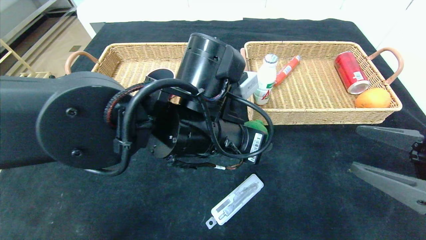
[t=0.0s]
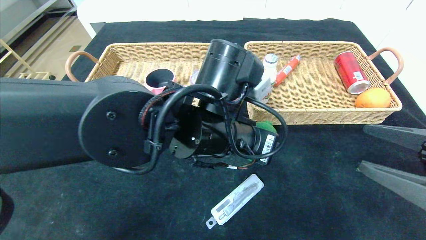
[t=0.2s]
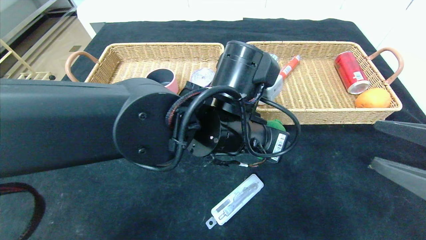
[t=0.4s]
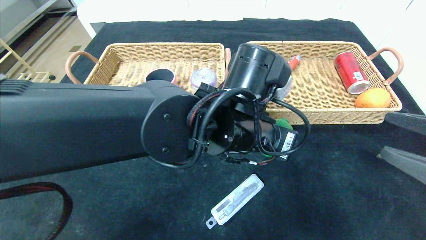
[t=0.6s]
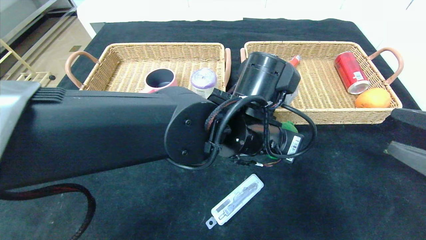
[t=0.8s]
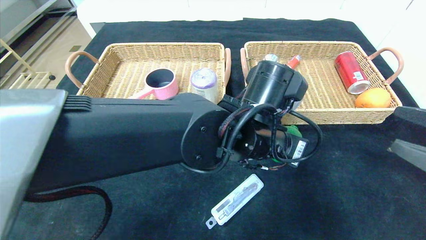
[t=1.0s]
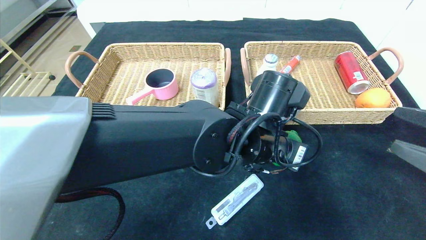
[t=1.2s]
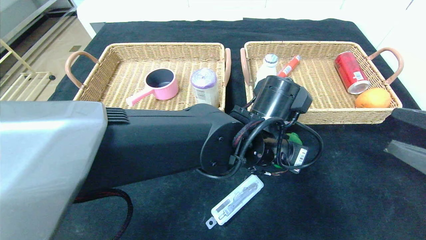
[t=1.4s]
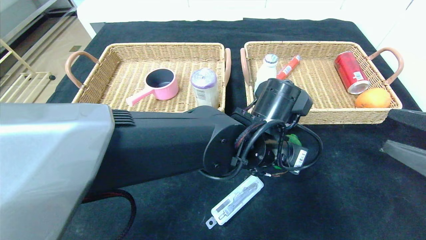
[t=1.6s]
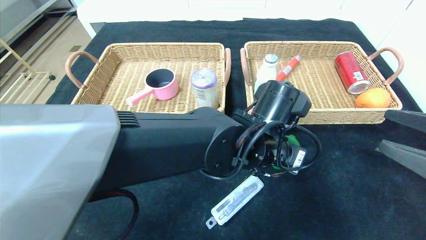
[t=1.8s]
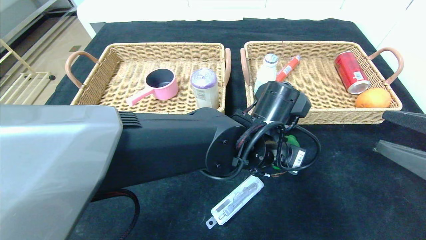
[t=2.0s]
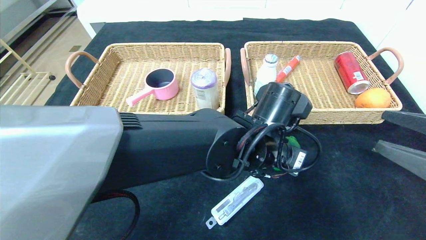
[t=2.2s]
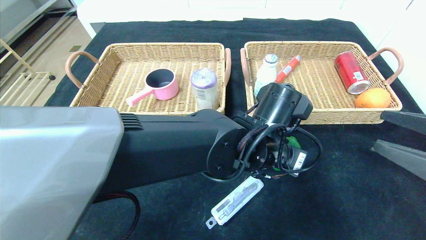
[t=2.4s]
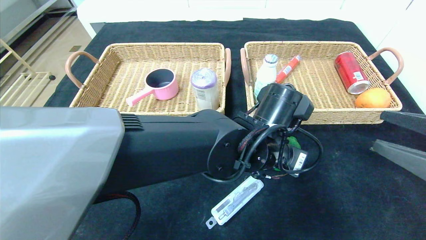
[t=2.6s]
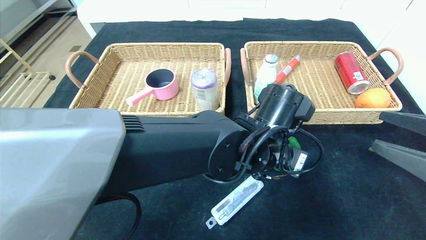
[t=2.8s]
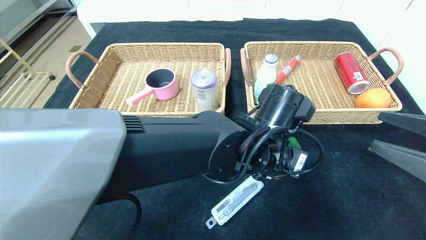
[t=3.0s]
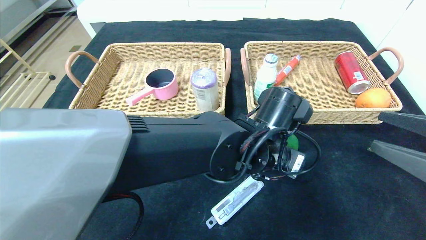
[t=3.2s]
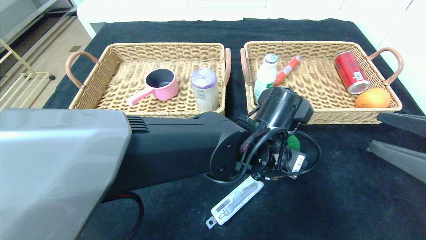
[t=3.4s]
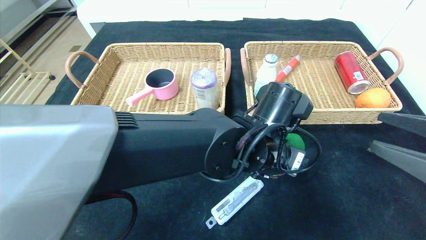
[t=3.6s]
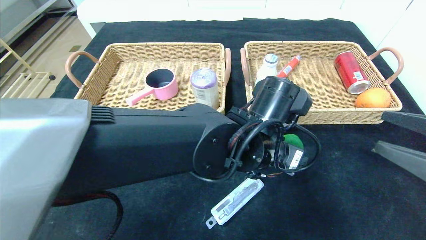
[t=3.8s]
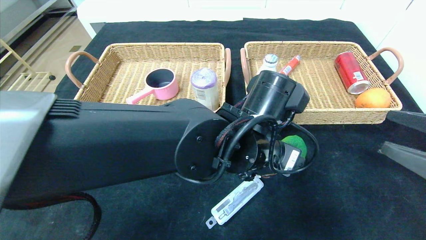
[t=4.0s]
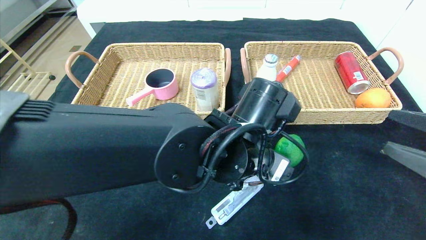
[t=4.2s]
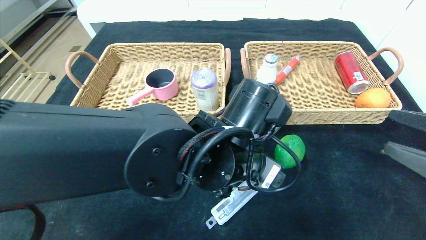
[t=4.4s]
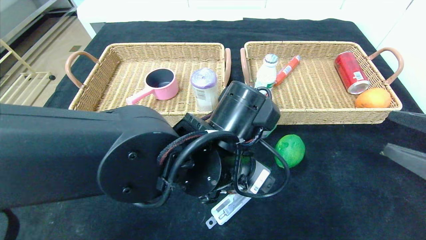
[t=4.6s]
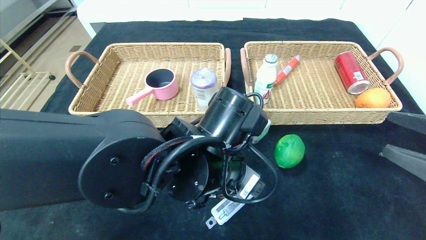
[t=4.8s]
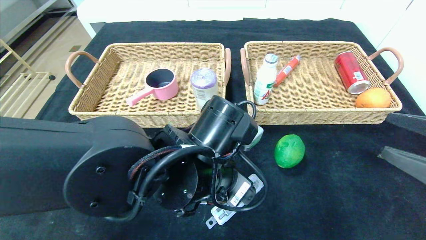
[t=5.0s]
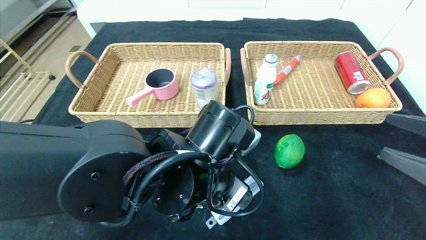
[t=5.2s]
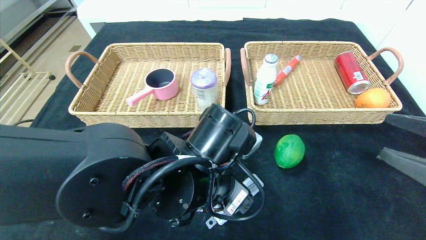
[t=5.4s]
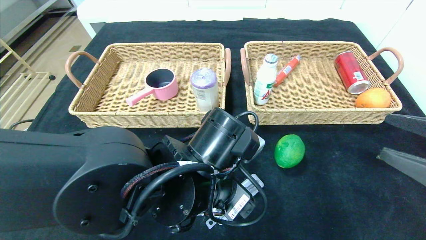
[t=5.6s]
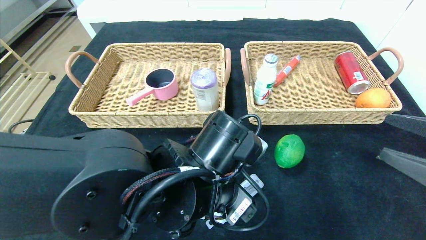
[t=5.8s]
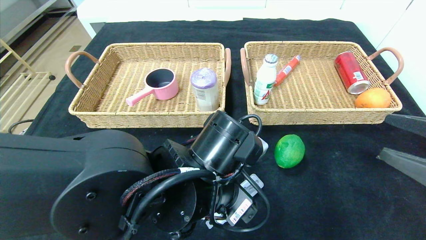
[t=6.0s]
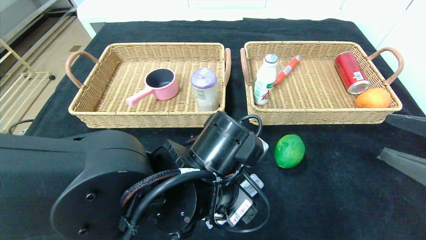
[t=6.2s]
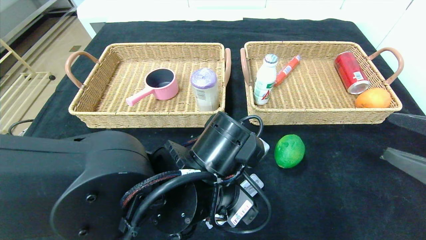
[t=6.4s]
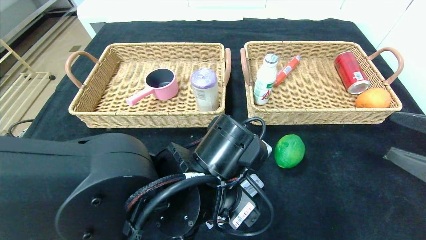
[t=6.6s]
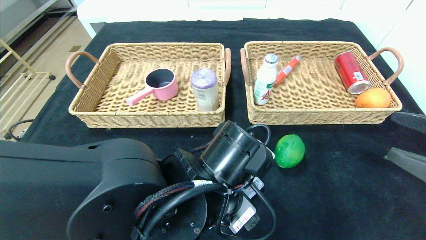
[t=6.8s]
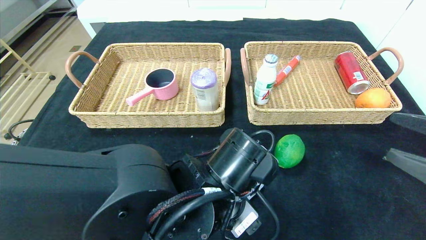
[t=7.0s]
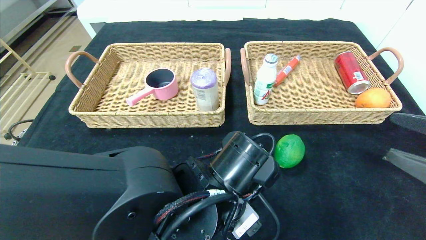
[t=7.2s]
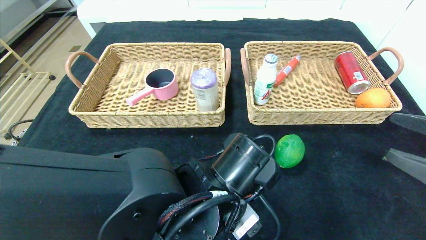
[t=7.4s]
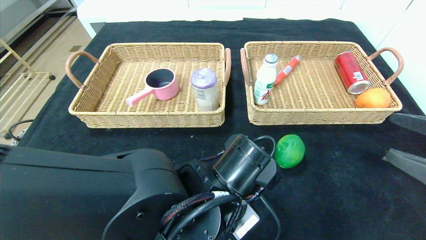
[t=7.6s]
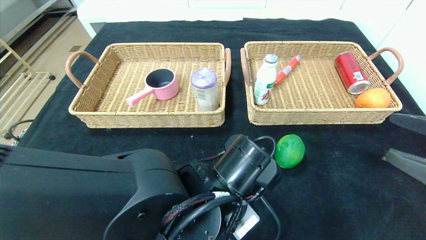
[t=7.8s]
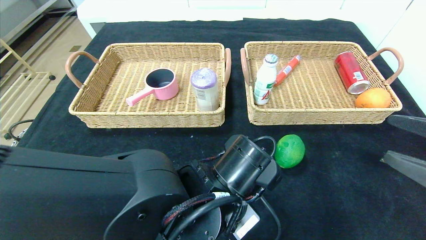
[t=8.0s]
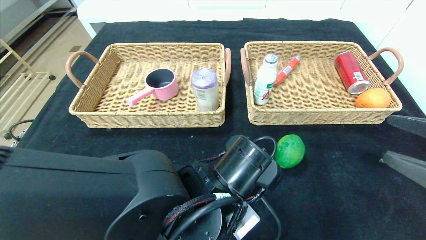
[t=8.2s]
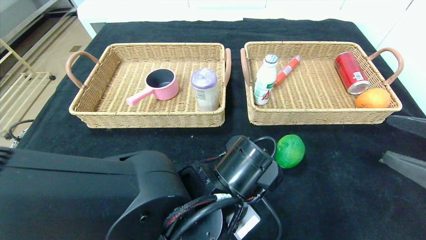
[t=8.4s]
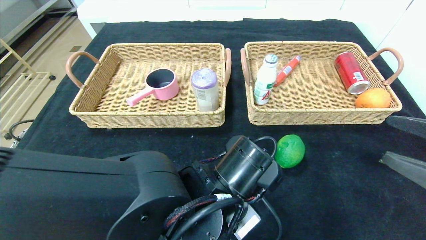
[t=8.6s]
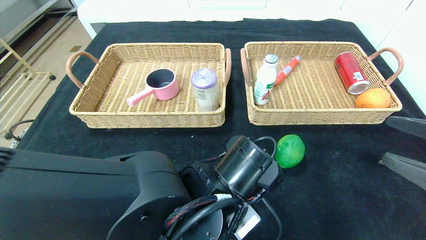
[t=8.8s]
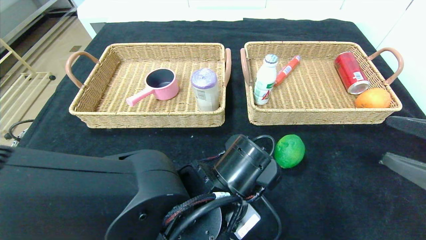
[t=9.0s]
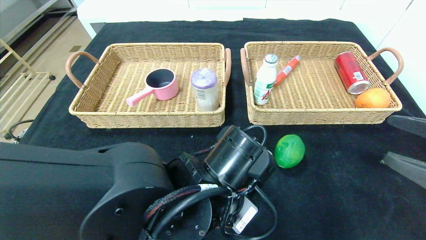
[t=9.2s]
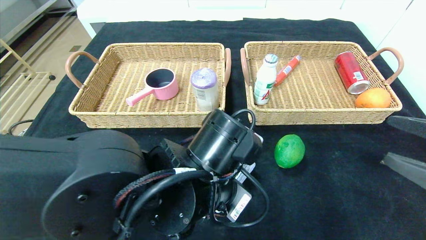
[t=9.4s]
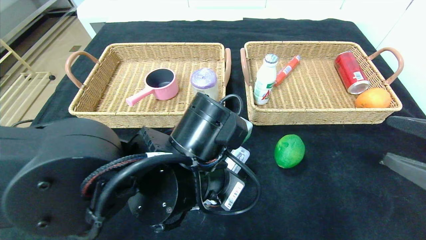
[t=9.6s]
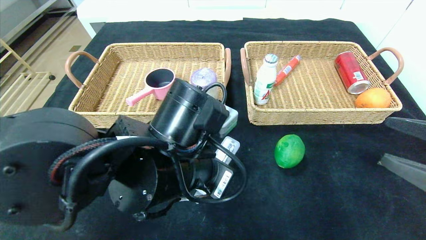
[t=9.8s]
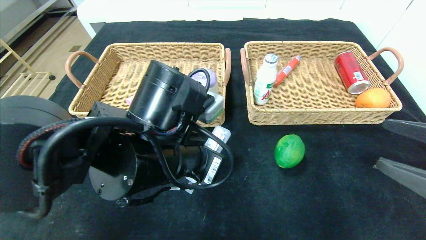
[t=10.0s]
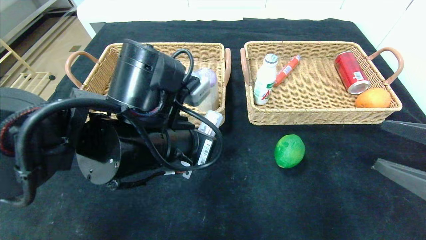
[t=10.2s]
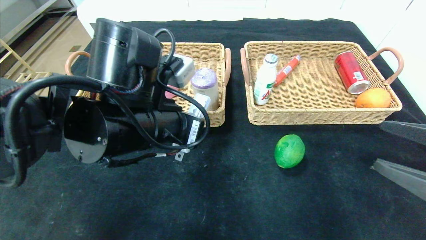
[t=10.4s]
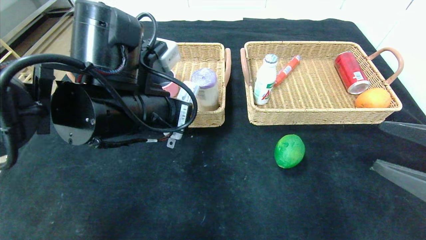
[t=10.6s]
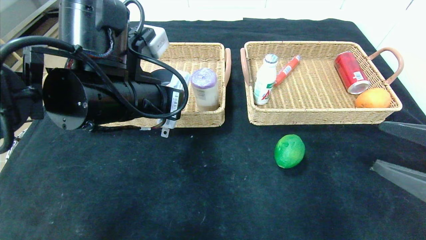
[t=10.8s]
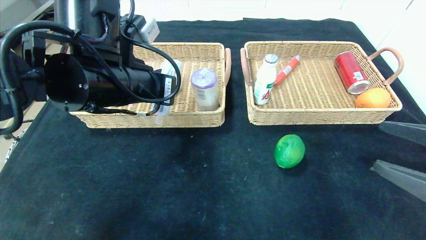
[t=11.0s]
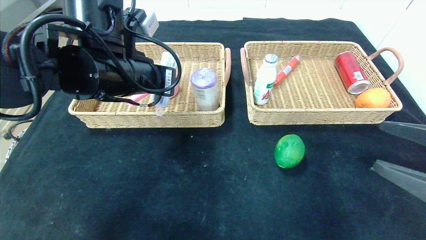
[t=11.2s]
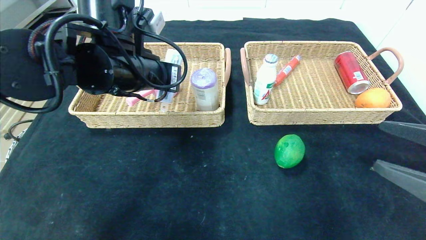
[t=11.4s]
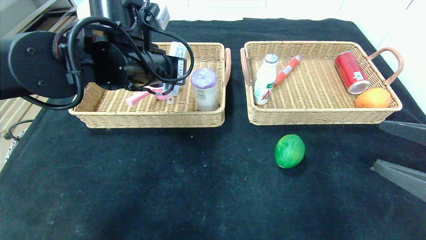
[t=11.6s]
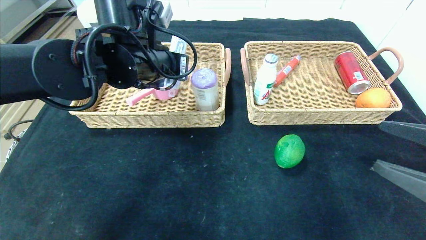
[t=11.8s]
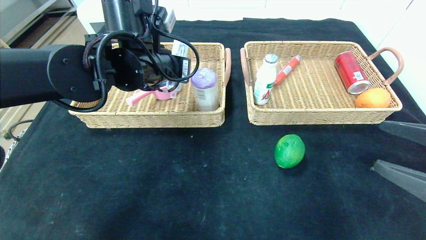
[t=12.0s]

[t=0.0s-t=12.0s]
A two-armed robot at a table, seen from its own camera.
Step, t=0.0s to t=4.6s: Place the lime in the center of the table.
t=0.0s to t=1.6s: The left gripper travels to the right by about 10 cm.
t=1.6s to t=3.0s: Both grippers stay about where they are.
t=3.0s to t=4.4s: The left gripper travels to the left by approximately 5 cm.
t=4.4s to t=6.0s: The left gripper shifts by about 5 cm.
t=6.0s to t=7.6s: The left gripper closes up.
t=7.6s to t=9.0s: Both grippers stay put.
t=9.0s to t=10.4s: The left gripper goes approximately 15 cm upward and to the left.
t=10.4s to t=12.0s: The left gripper is displaced forward by some 10 cm.

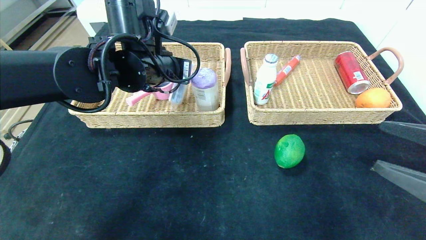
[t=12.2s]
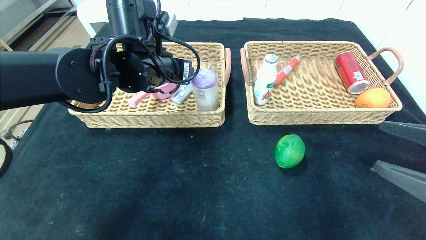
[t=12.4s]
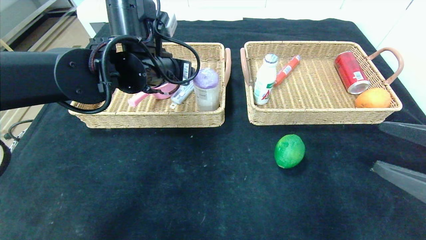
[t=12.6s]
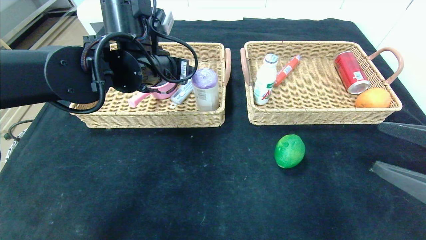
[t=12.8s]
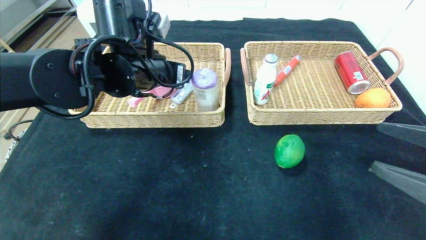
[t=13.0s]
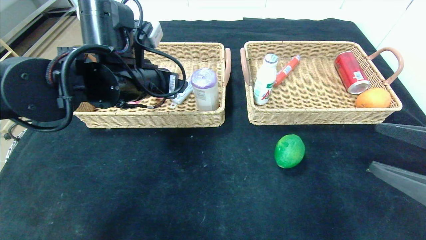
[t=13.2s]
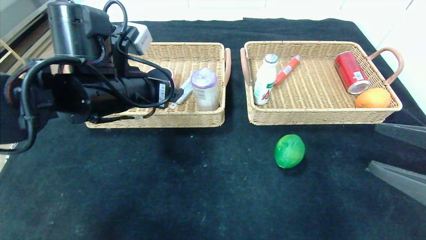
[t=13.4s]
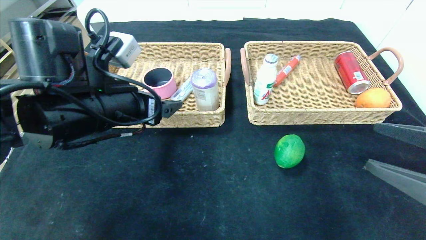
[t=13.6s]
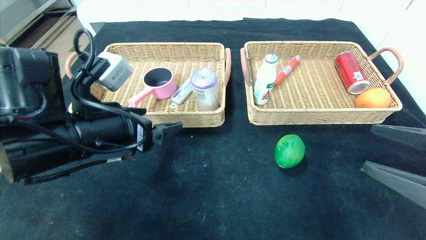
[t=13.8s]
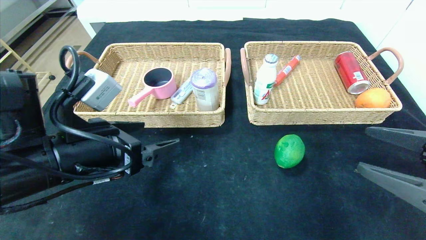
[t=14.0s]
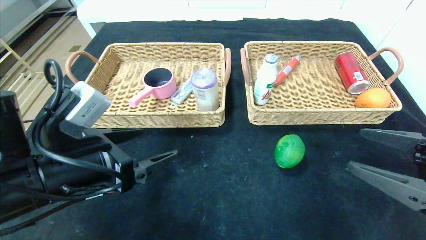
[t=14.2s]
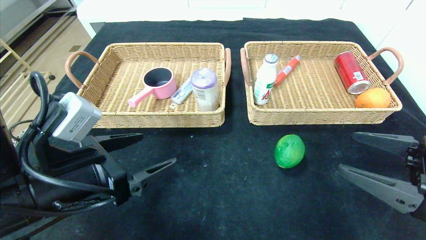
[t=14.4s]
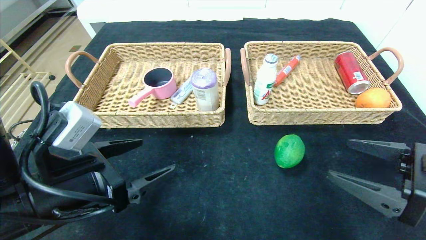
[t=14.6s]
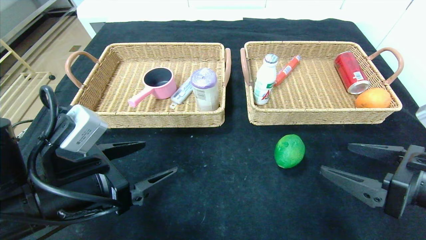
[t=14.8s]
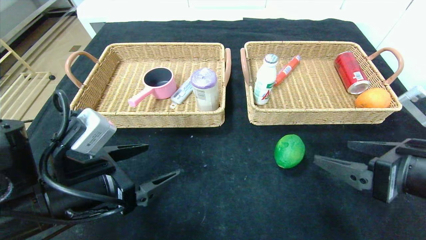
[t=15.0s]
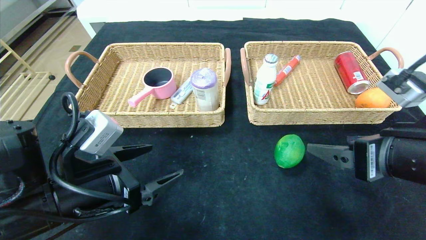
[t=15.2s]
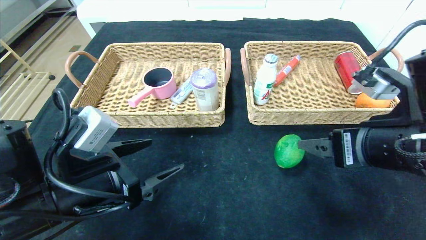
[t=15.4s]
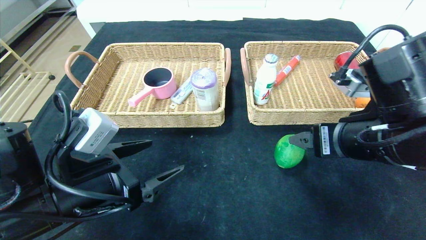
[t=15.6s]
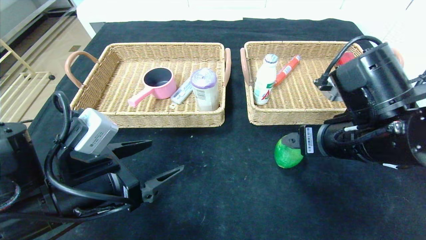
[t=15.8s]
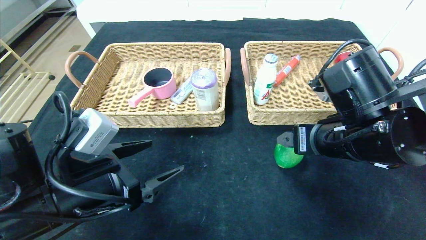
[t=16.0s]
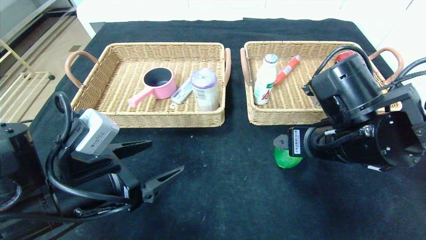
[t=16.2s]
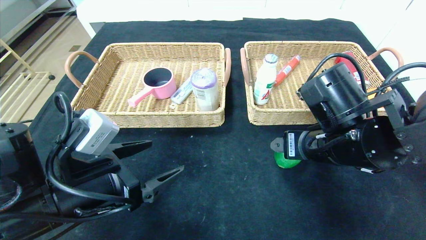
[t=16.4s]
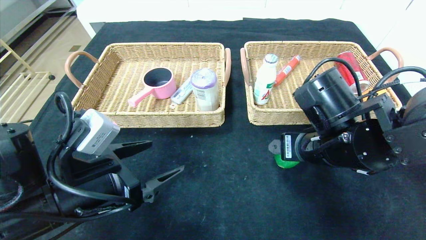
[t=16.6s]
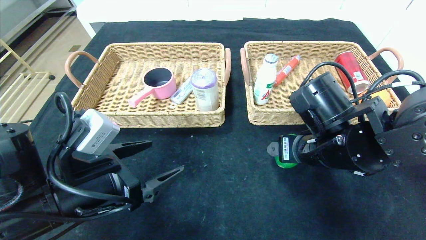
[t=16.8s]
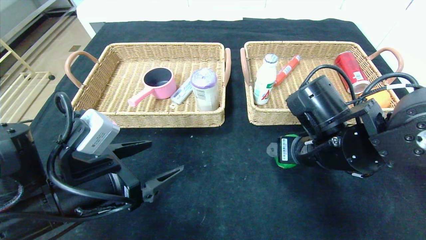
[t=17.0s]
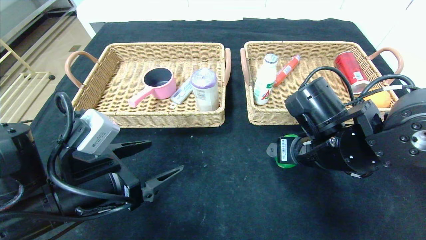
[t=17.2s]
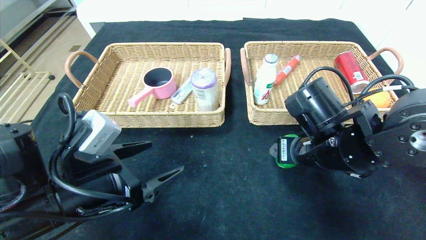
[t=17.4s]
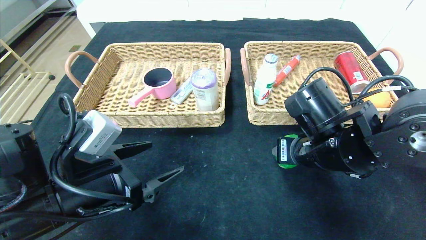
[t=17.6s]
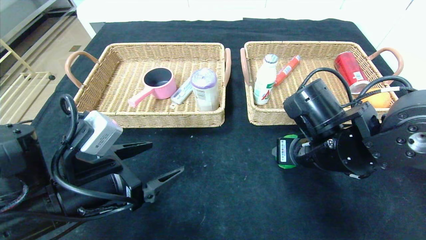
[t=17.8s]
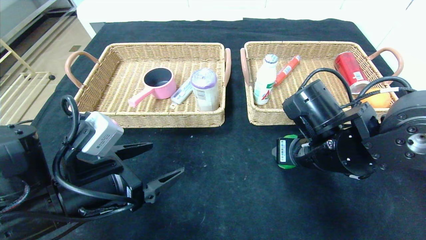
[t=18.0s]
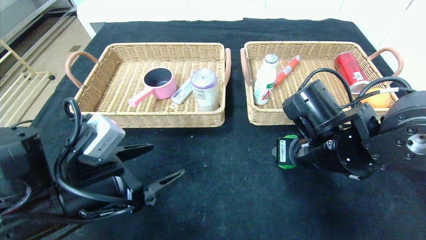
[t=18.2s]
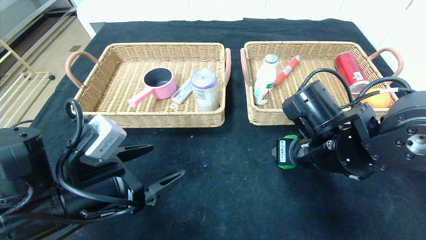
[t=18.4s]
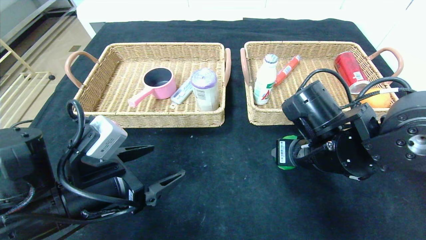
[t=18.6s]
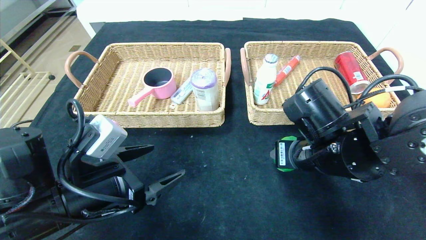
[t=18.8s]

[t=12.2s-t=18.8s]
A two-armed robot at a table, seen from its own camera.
t=12.2s to t=13.8s: The left gripper is displaced backward, to the left and downward by roughly 15 cm, and opens up.
t=13.8s to t=15.4s: The left gripper moves downward, approximately 5 cm, while the right gripper goes approximately 10 cm to the left and forward.
t=15.4s to t=17.2s: The right gripper is displaced forward, to the left and downward by roughly 10 cm.
t=17.2s to t=18.8s: The right gripper closes up.
